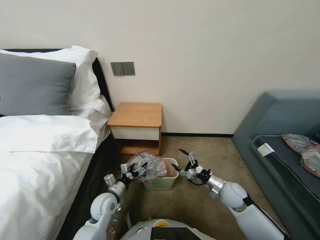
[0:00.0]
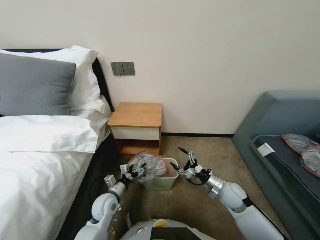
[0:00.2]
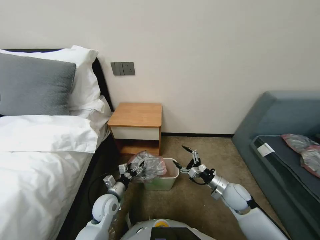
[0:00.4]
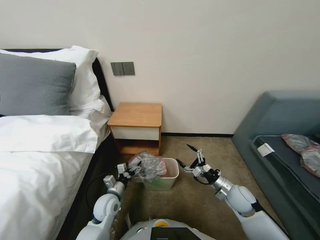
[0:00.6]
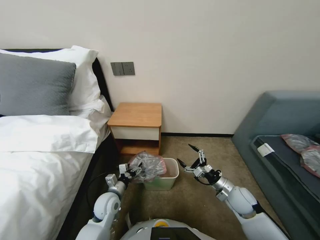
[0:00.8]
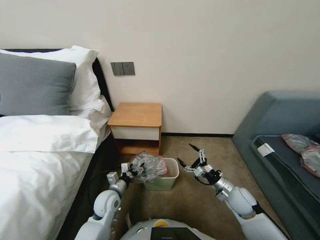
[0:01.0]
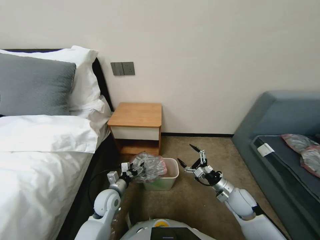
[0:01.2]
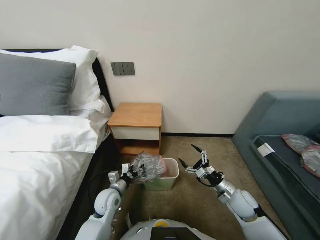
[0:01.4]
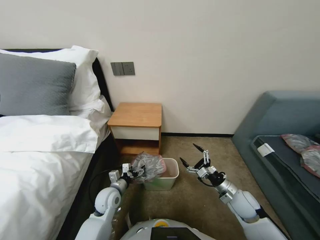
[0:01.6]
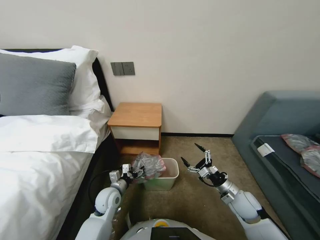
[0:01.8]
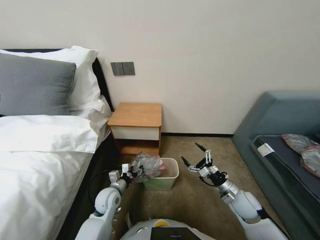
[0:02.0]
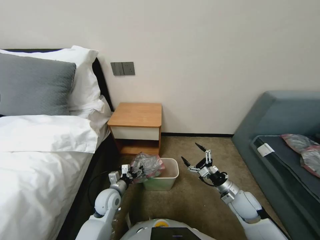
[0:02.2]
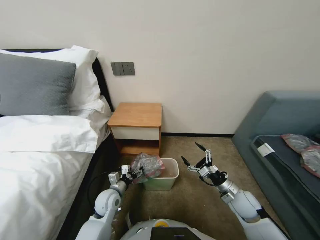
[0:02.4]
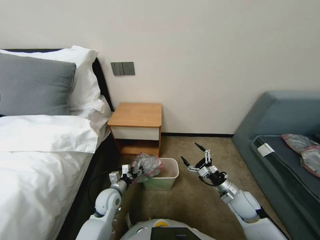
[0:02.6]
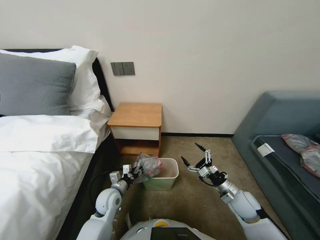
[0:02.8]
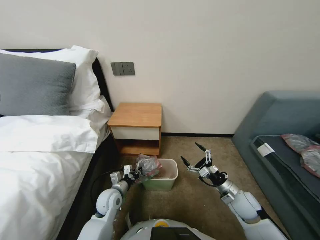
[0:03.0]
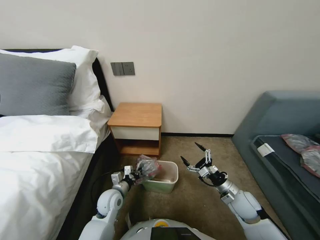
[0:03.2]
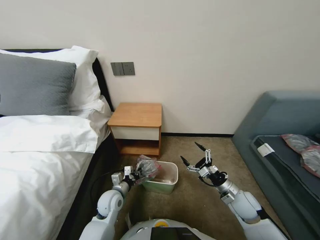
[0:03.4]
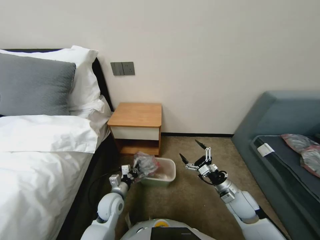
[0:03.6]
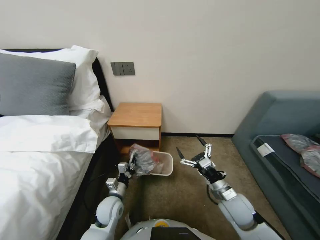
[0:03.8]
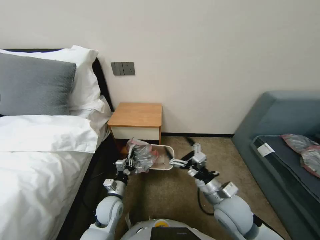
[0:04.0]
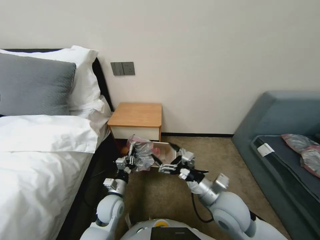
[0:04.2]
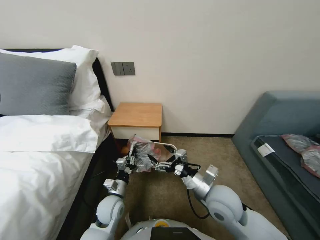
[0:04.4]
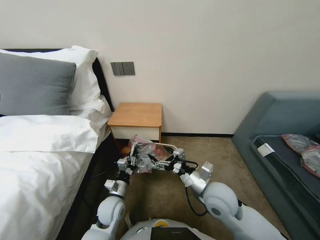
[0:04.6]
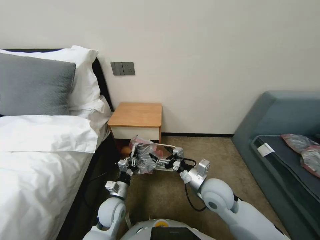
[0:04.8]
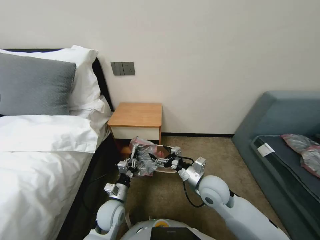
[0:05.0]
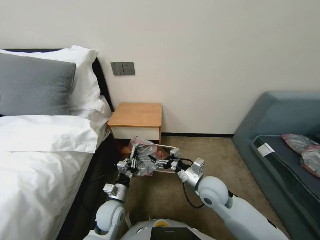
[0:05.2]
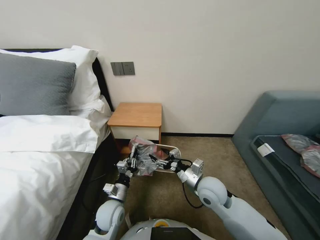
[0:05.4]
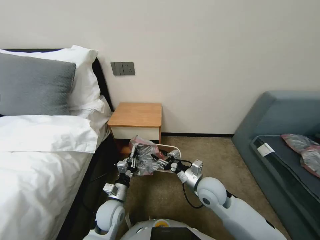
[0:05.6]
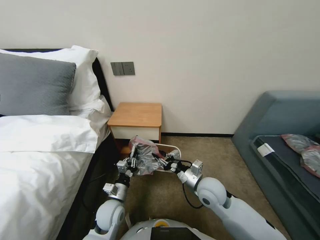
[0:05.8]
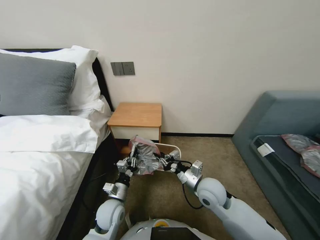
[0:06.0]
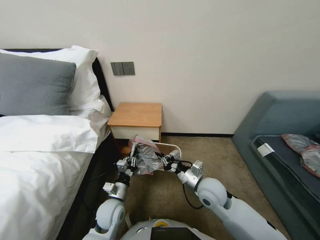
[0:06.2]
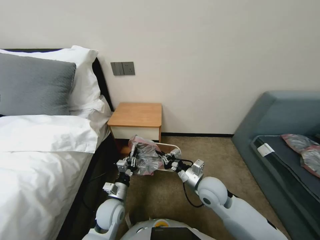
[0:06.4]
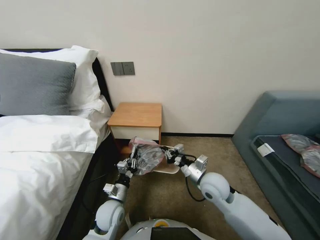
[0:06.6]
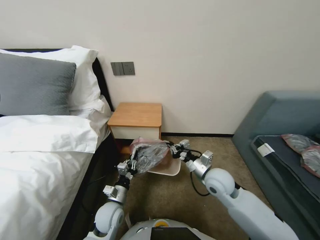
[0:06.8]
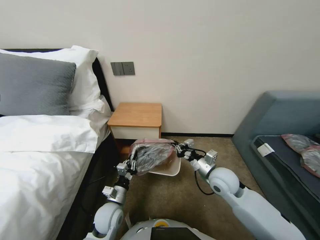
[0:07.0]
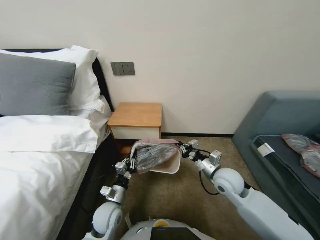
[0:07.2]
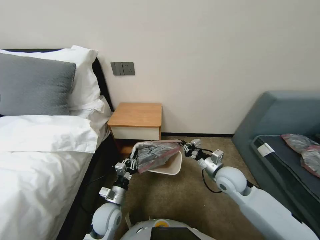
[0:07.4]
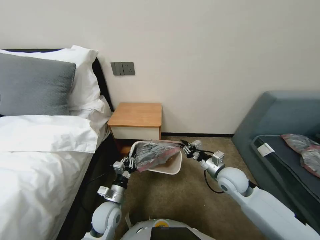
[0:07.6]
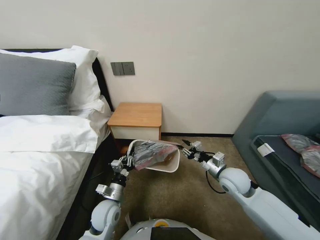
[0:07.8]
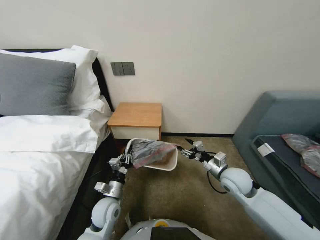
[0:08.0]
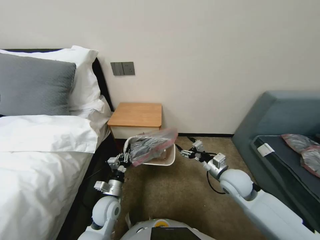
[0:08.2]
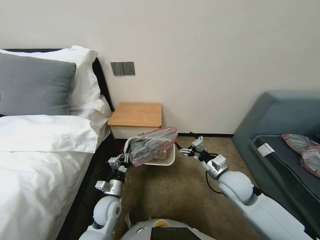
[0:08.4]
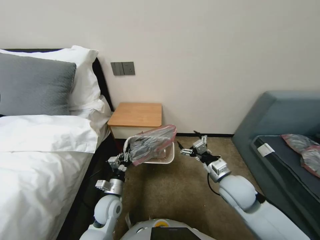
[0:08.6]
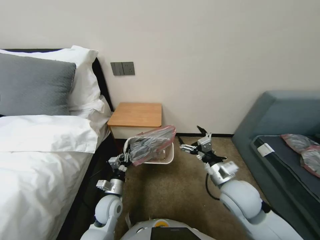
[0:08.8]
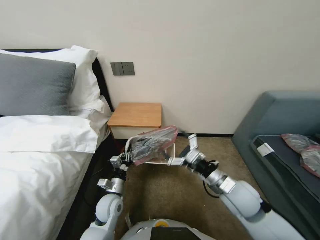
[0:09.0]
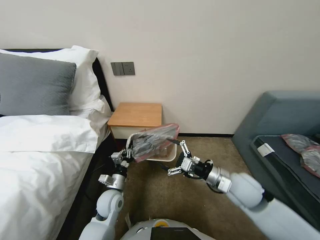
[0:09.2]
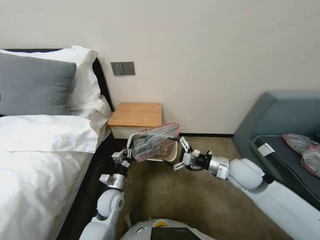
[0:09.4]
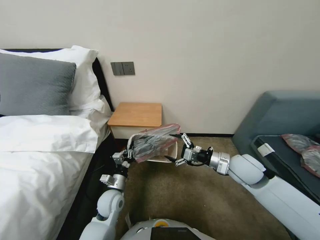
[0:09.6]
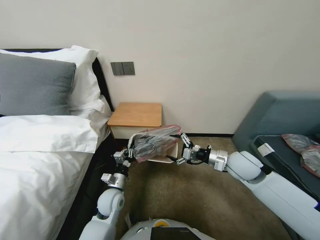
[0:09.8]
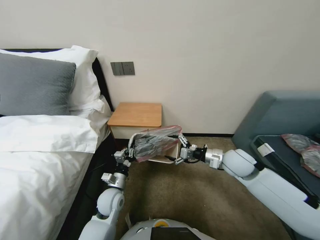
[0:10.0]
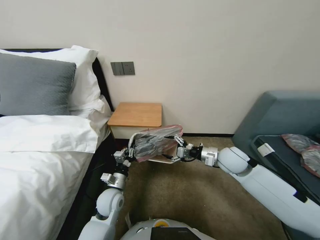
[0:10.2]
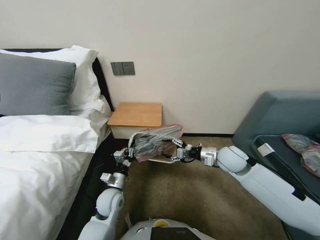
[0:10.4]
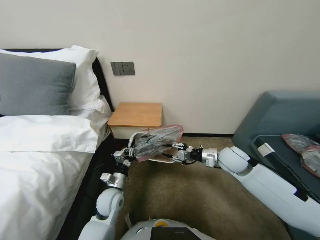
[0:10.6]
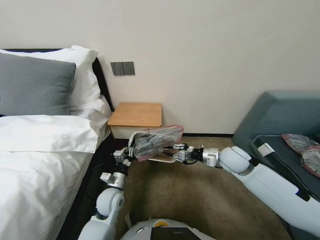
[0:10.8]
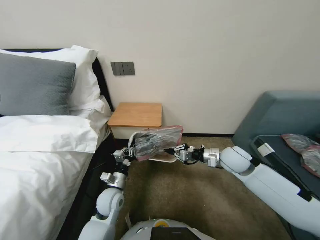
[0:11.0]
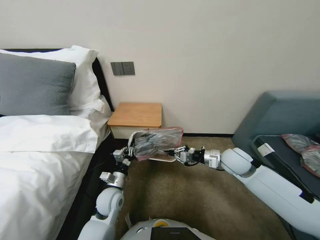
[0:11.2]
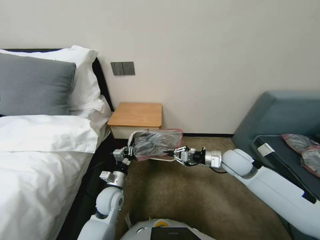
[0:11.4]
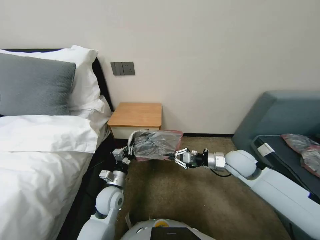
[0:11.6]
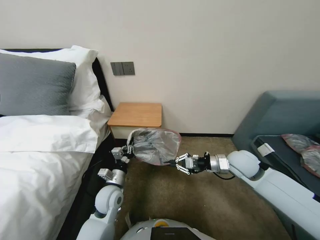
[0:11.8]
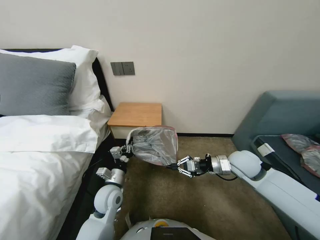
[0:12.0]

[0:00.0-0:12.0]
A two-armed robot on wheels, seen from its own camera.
Task of the whole recording: Pick up the garbage bag from the table and place it over the trash can.
0:00.0 to 0:01.6: The grippers make only small movements.
0:01.6 to 0:03.0: The left gripper closes its fingers.
0:03.0 to 0:04.4: The right gripper heads to the left and upward, covering roughly 20 cm.
0:04.4 to 0:06.0: The right gripper moves forward, approximately 5 cm, and closes its fingers.
0:06.0 to 0:07.6: The right gripper is displaced to the right by roughly 10 cm.
0:07.6 to 0:09.0: The right gripper shifts approximately 10 cm backward and upward, and opens up.
0:09.0 to 0:10.4: The right gripper goes some 15 cm forward.
0:10.4 to 0:12.0: The right gripper closes its fingers.

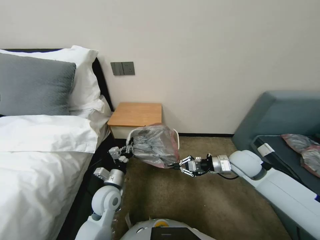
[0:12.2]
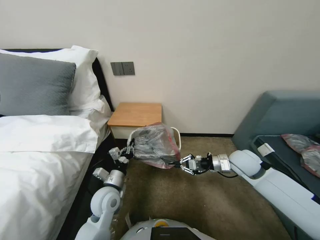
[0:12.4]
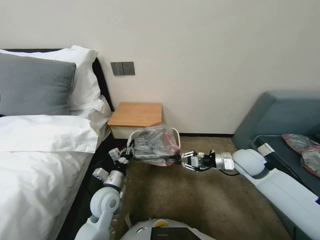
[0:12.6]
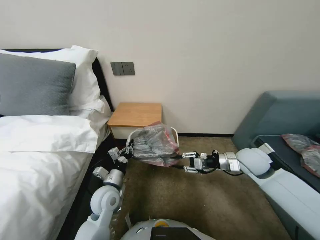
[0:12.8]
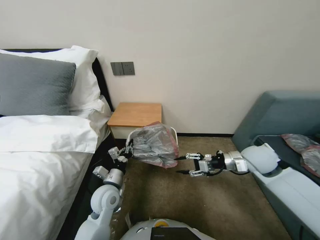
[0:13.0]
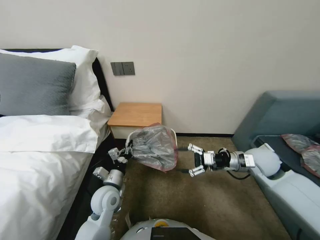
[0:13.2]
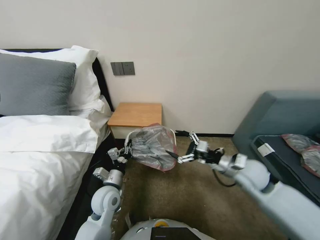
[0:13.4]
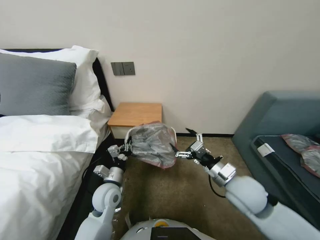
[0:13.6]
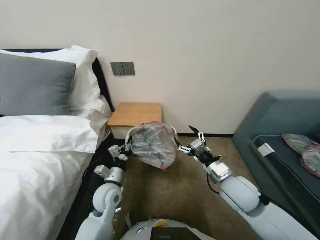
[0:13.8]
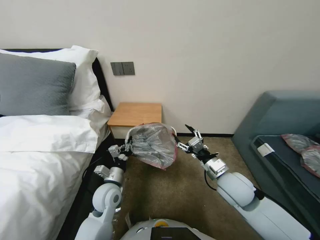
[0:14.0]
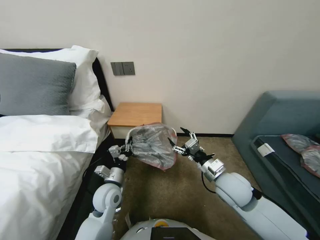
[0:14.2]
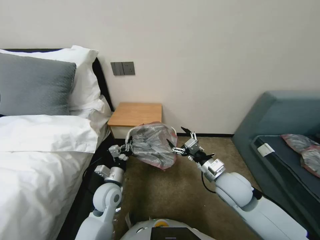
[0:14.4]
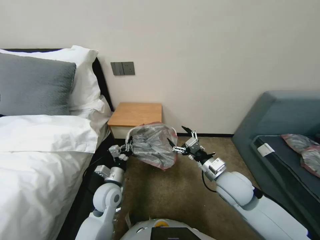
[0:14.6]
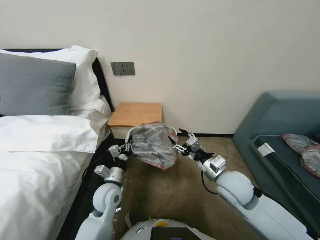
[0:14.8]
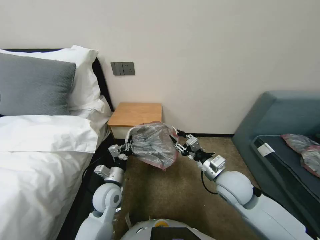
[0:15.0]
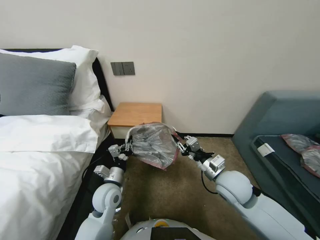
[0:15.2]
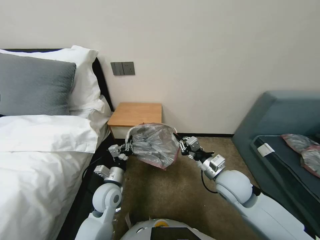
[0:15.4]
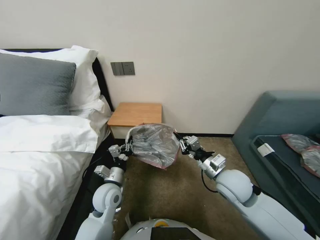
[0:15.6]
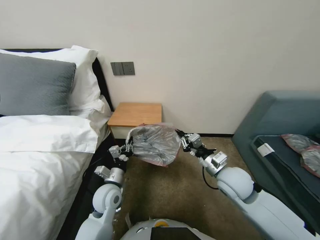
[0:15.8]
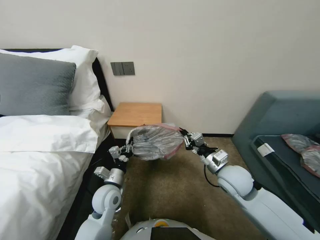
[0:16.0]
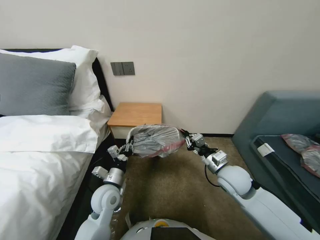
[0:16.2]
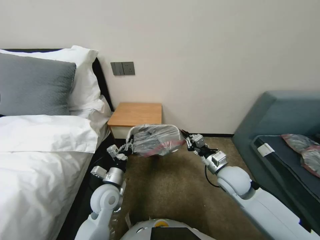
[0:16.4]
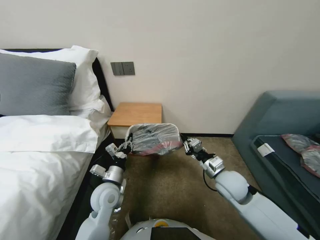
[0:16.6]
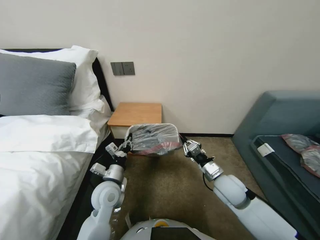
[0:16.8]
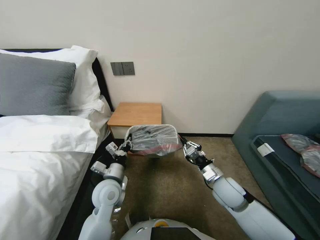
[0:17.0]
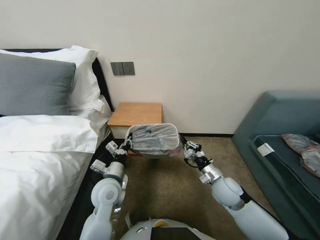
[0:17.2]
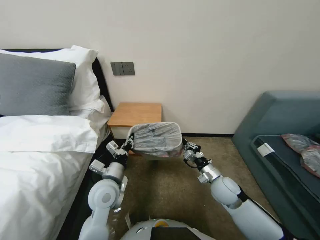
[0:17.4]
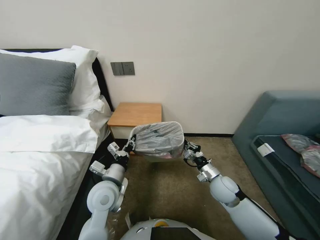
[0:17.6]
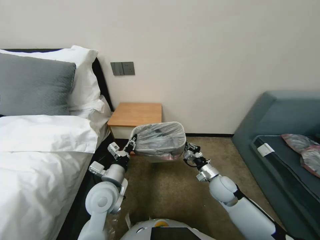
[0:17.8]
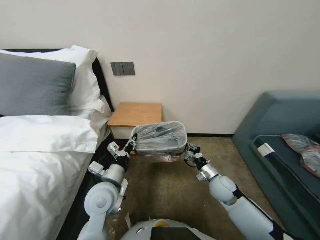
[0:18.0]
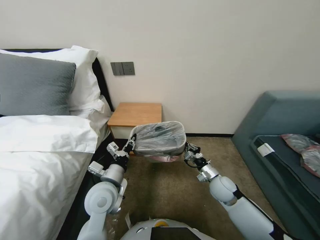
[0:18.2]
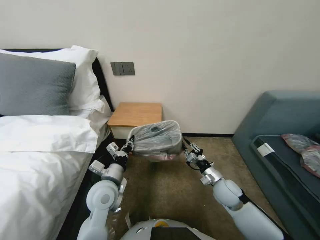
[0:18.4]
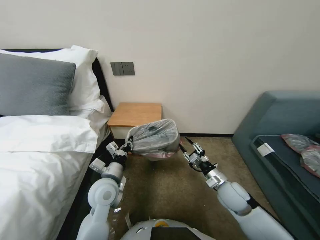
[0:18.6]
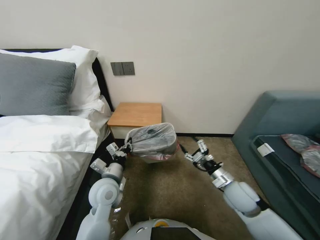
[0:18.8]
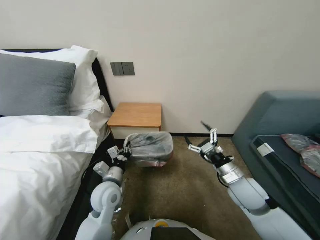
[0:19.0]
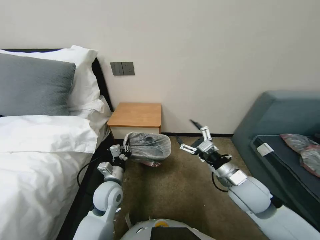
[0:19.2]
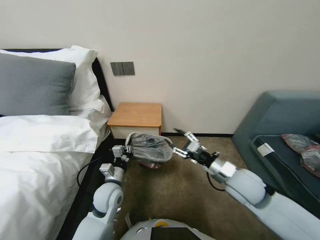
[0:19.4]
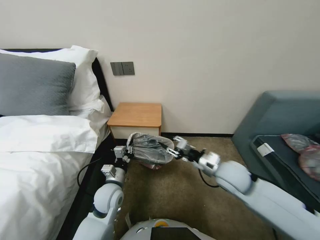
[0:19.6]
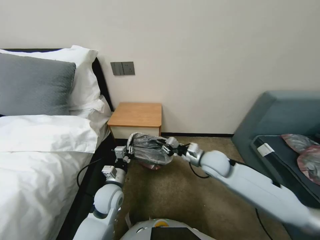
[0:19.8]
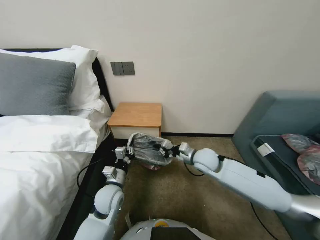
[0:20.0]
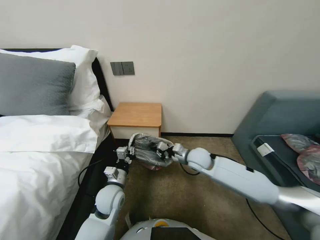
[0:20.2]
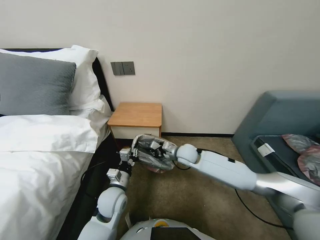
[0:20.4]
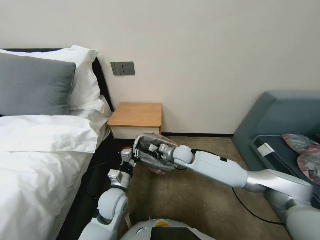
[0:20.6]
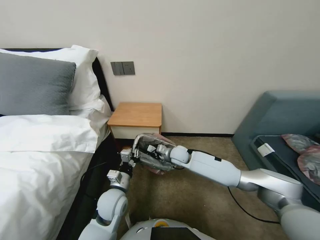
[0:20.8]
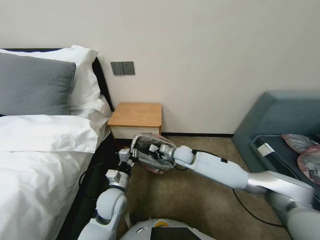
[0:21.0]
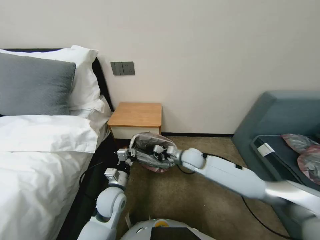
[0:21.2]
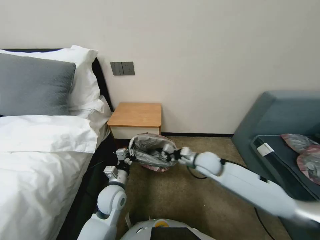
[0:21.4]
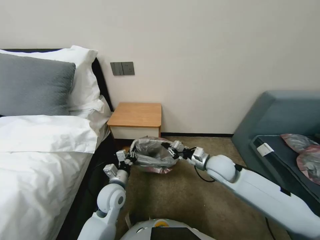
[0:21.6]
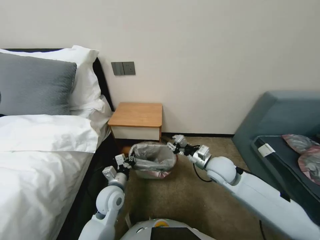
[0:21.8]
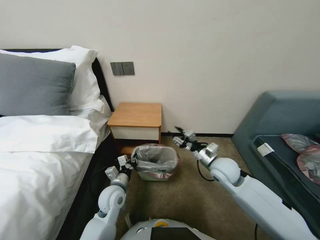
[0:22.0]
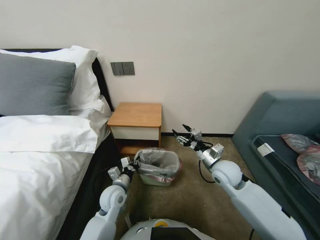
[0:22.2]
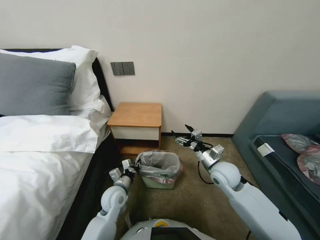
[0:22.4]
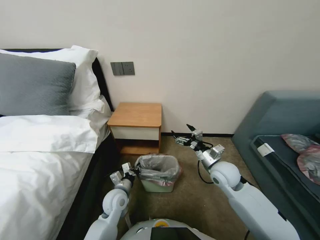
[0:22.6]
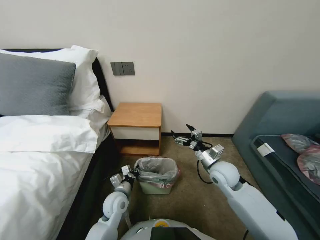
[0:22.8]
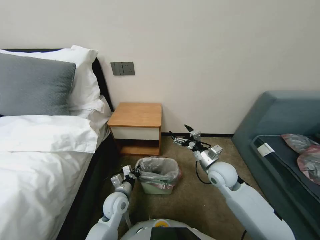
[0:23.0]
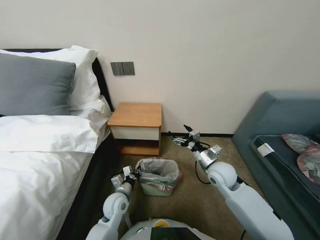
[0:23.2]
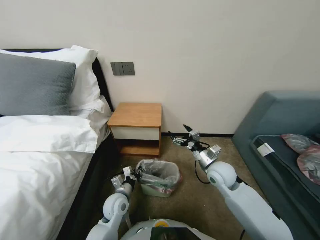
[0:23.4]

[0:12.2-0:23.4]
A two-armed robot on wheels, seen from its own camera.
Task of the whole recording: Pick up the garbage bag from the table and place it over the trash can.
0:12.2 to 0:13.8: The right gripper shifts roughly 10 cm backward and to the left, and opens.
0:13.8 to 0:15.4: The right gripper closes up.
0:15.4 to 0:17.0: The right gripper moves downward, approximately 5 cm.
0:17.0 to 0:18.6: The right gripper opens up.
0:18.6 to 0:20.2: The left gripper heads downward, covering roughly 5 cm. Meanwhile the right gripper travels forward, to the left and upward by about 15 cm, and closes.
0:21.8 to 0:23.4: The right gripper opens. The left gripper heads downward, covering roughly 5 cm.
